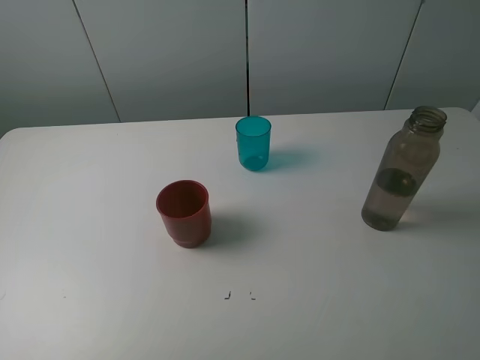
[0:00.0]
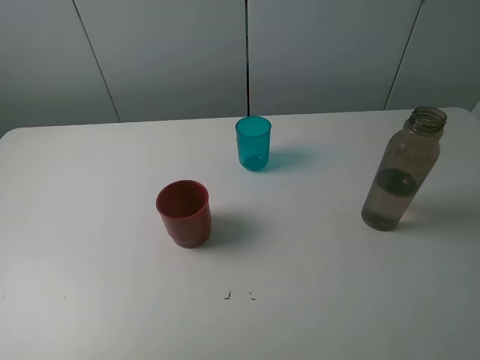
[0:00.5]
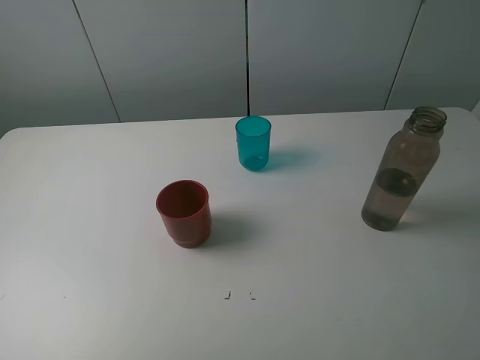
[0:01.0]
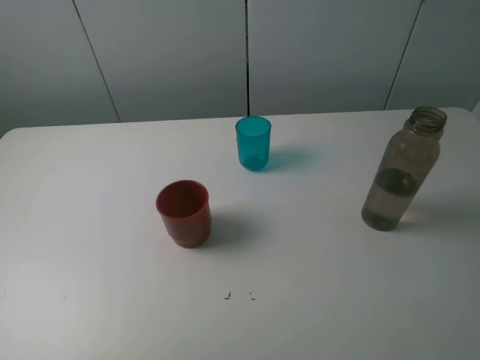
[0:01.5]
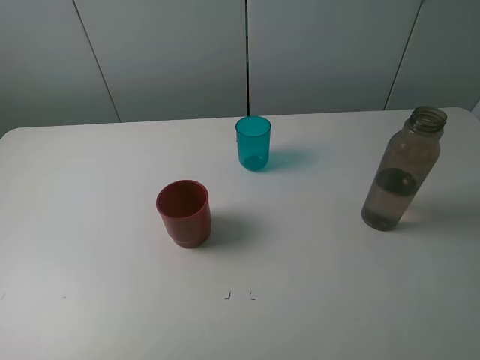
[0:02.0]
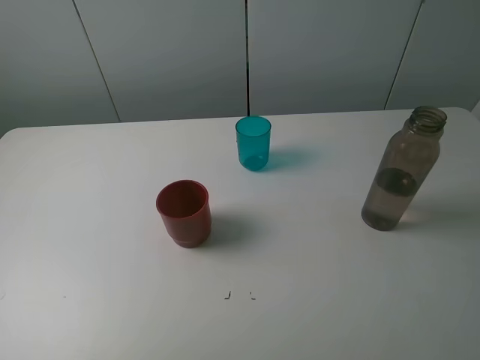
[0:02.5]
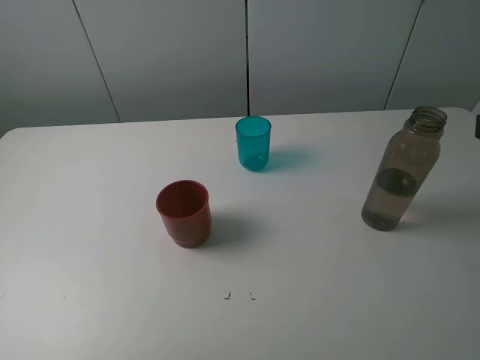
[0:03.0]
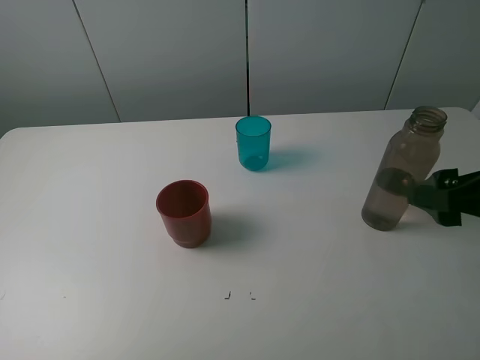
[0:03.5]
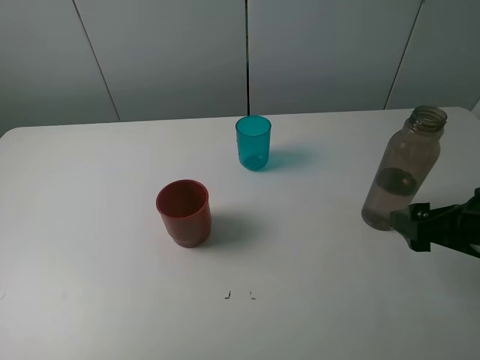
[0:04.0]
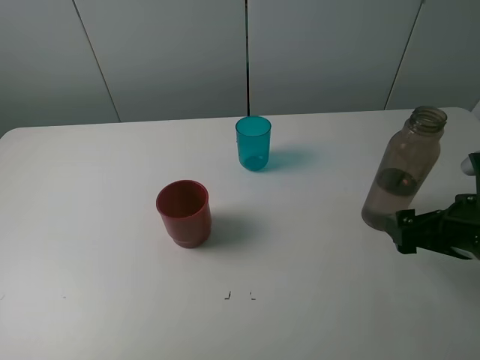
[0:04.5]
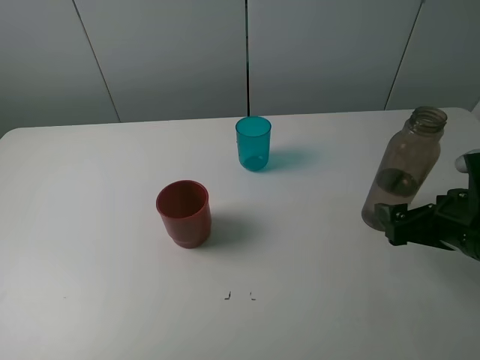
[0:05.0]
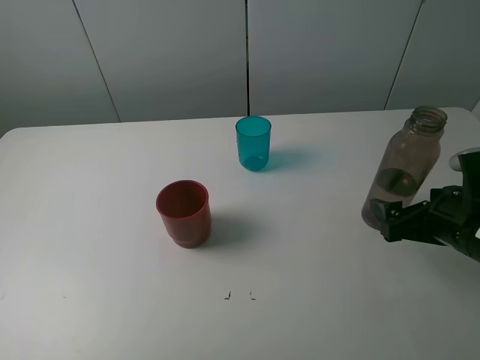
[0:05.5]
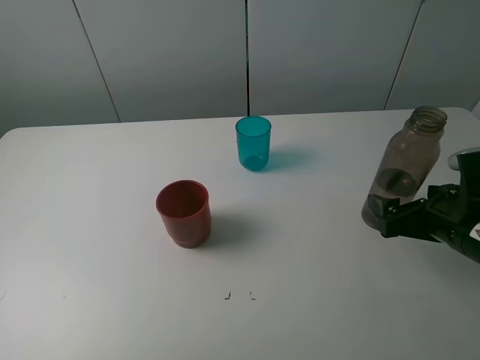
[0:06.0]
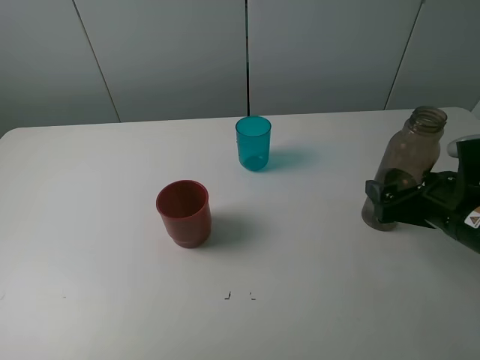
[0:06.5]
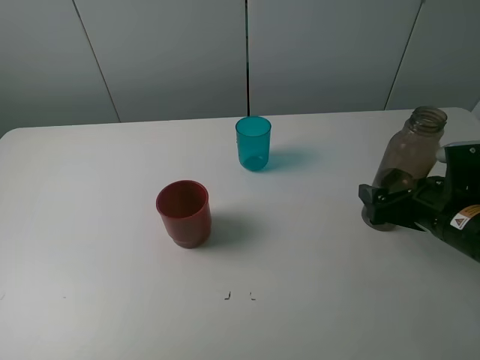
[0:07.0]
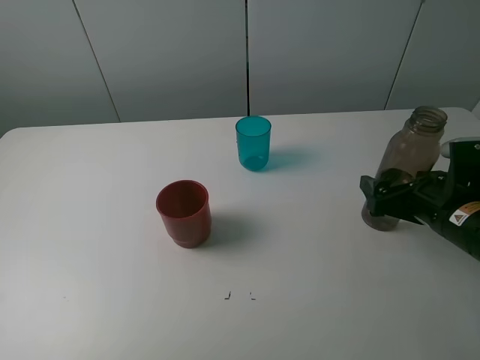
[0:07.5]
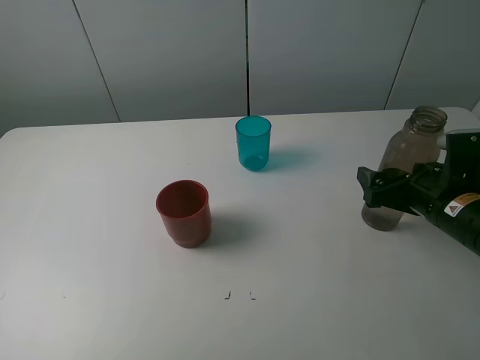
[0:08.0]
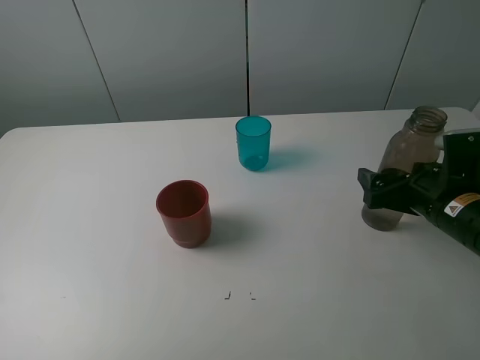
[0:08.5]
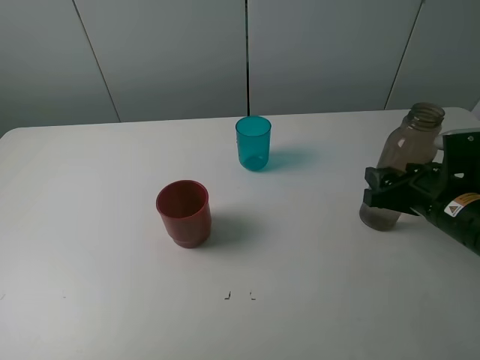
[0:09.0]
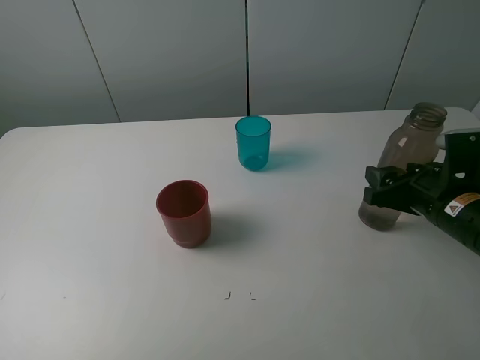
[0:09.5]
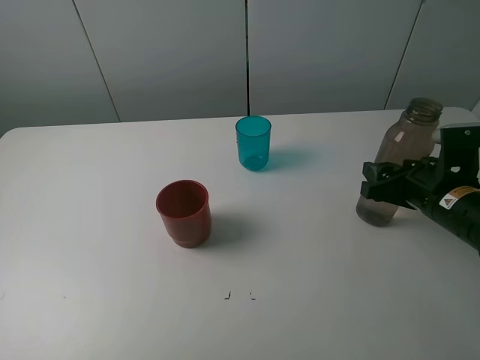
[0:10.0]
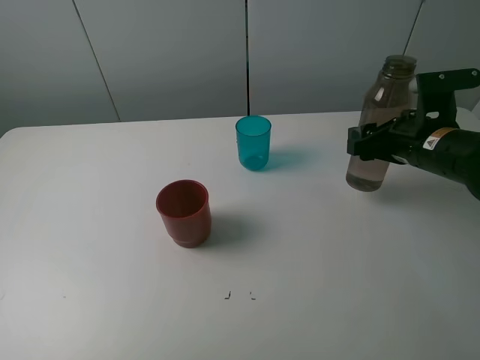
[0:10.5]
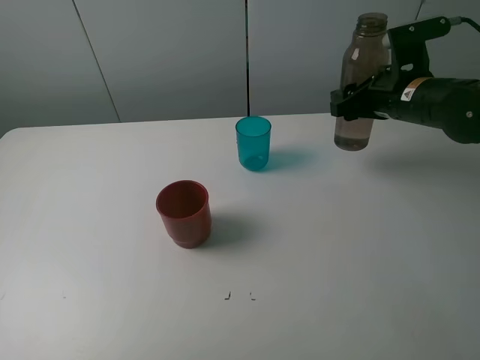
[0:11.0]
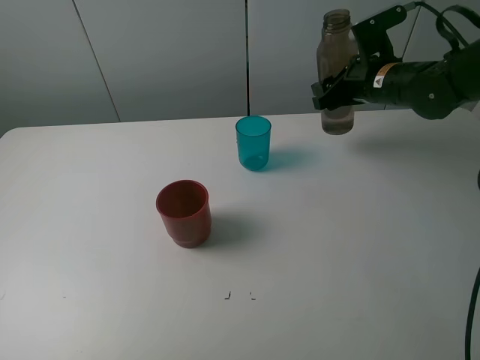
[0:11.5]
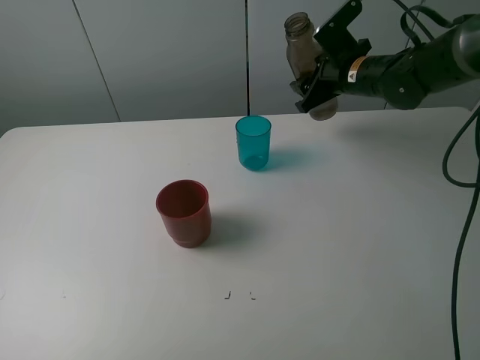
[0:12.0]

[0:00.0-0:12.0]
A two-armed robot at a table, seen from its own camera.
Task of the whole recording: pick up the bottle and pour water into the cup, then pick up the cup containing water and pour it into another cup.
Step, 0.0 to 9.0 s: Grasp the brown bottle with the right gripper.
0.0 to 2.0 s: The two grippers keep their place.
2.0 to 4.0 s: The right gripper shifts some 20 cm forward and downward.
4.0 to 6.0 s: The right gripper shifts by some 5 cm.
6.0 to 8.0 s: The grippers move only a little.
8.0 to 10.0 s: The right gripper closes its fingers.
10.0 to 12.0 s: The right gripper goes roughly 20 cm forward.

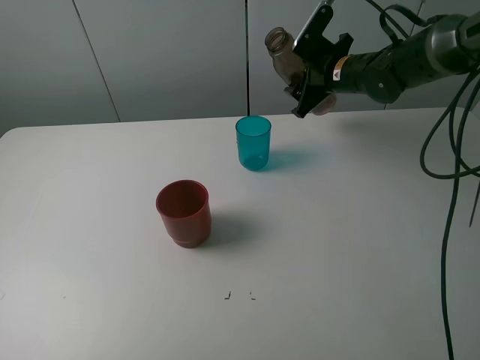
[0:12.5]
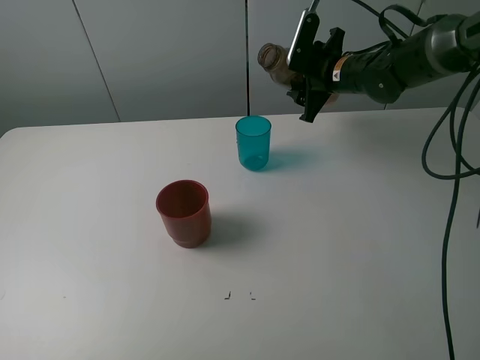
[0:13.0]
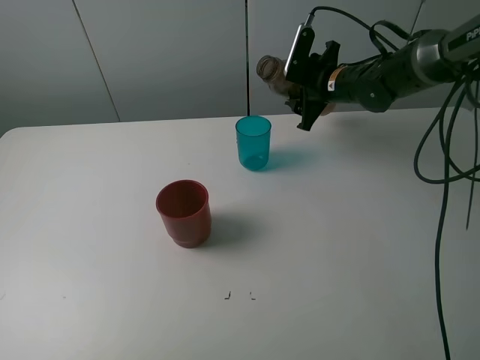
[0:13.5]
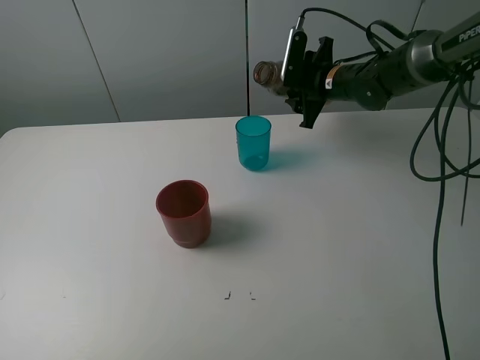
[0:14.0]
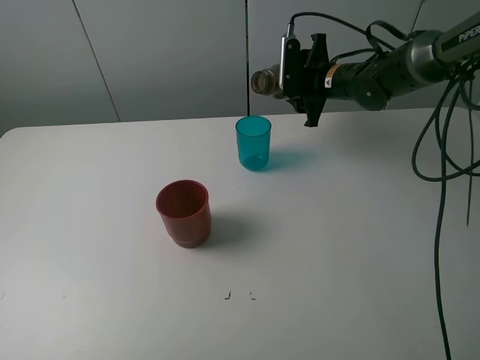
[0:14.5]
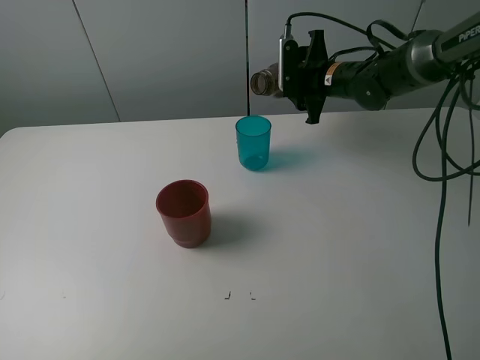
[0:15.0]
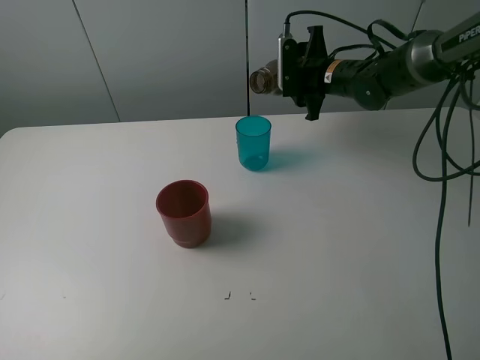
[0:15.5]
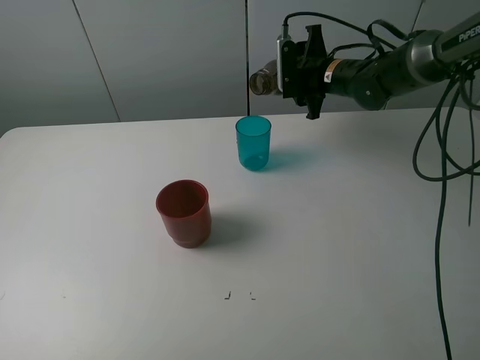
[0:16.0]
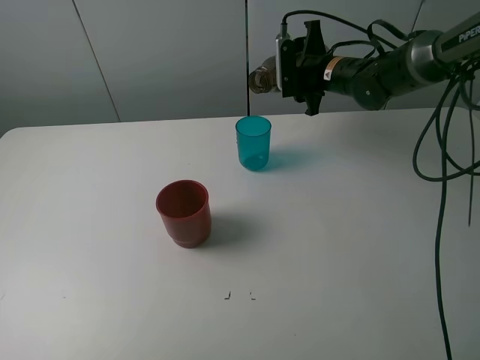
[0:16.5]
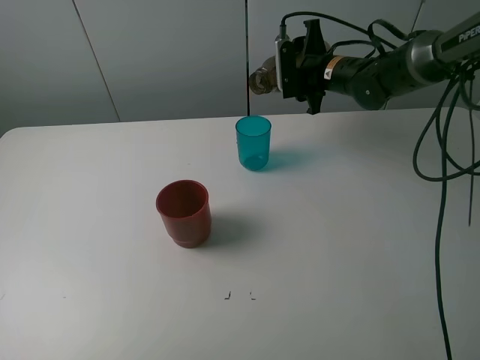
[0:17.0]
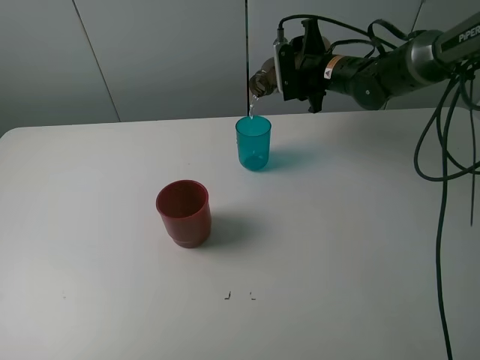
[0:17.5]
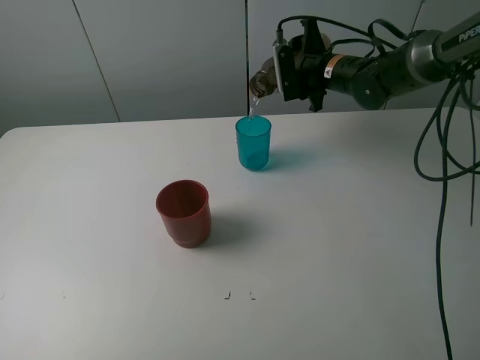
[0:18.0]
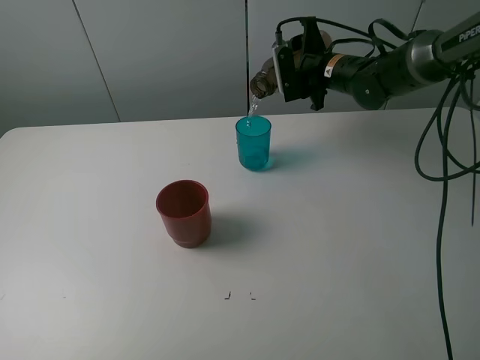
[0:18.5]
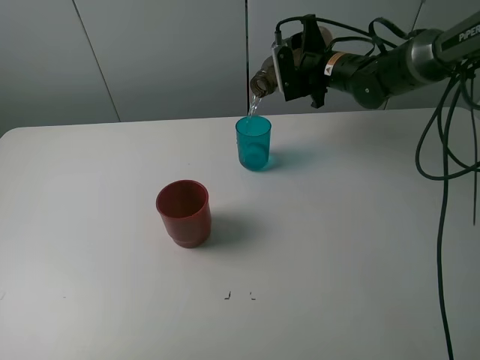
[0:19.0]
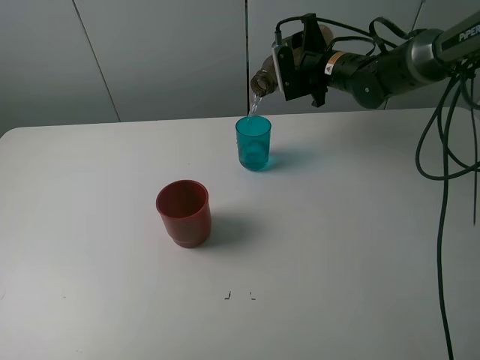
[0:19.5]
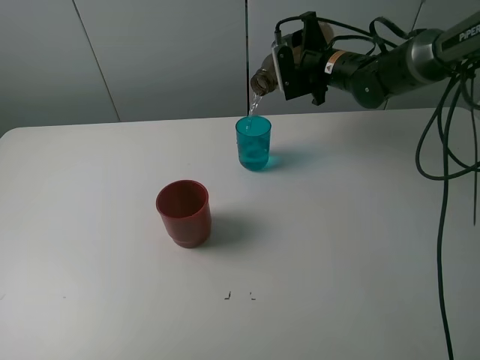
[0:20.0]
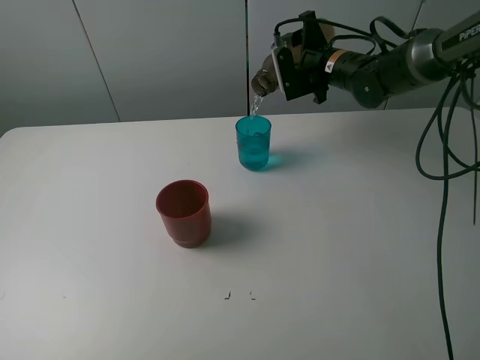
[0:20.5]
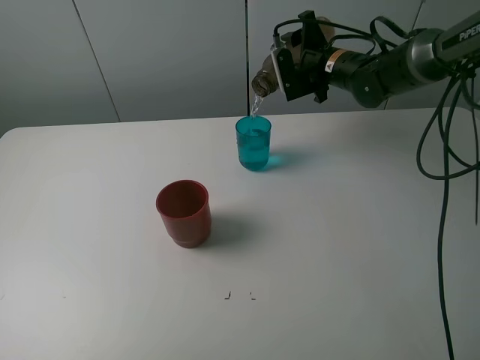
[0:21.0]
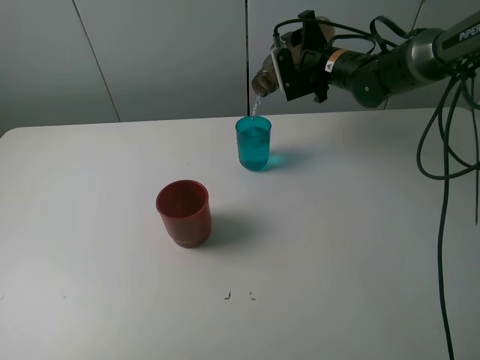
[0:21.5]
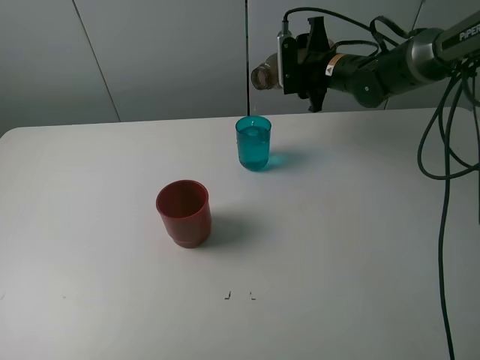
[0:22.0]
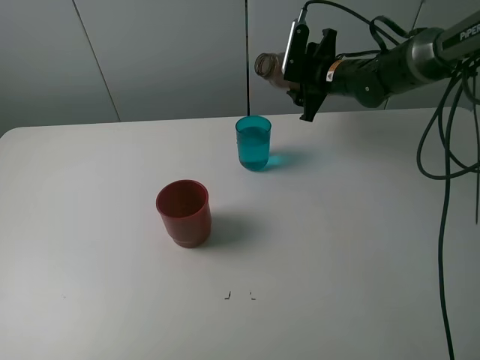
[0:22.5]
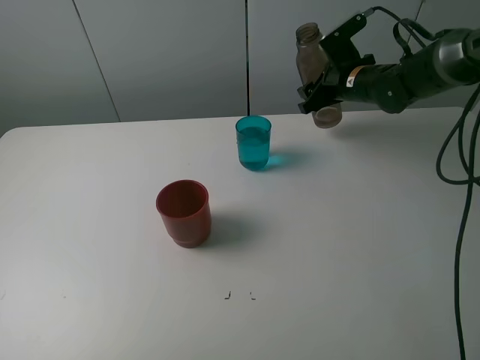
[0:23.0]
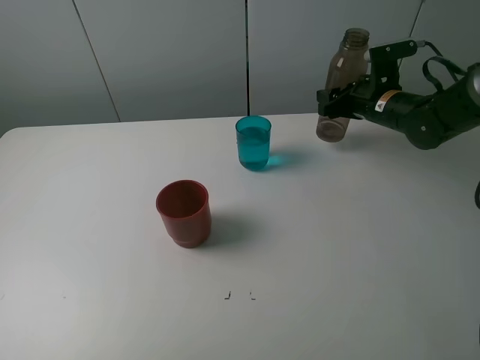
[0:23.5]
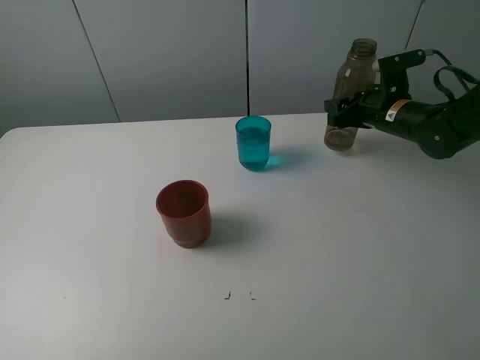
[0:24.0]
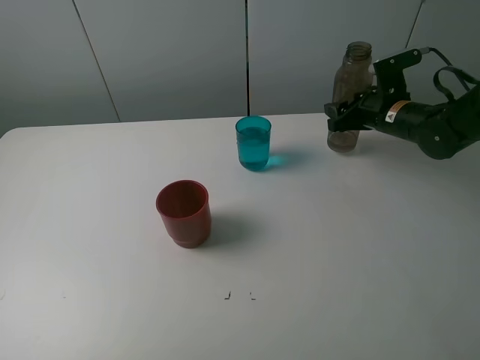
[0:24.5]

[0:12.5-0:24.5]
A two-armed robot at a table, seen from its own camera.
Task of the whole recording: pick up the bottle and pour water into the cup, then pick up the cup containing water and pour it into another cup.
Step, 12.5 to 22.0 s: Pour water from brown bottle to blue cup with the right gripper.
14.5 to 16.5 s: There are only small adjustments of the grippers.
16.5 to 20.5 s: There are only small adjustments of the grippers.
22.5 to 24.5 s: The right gripper goes roughly 10 cm to the right and backward.

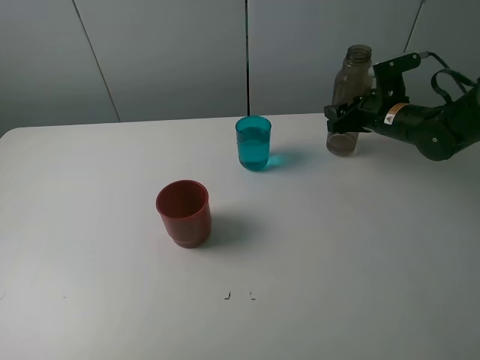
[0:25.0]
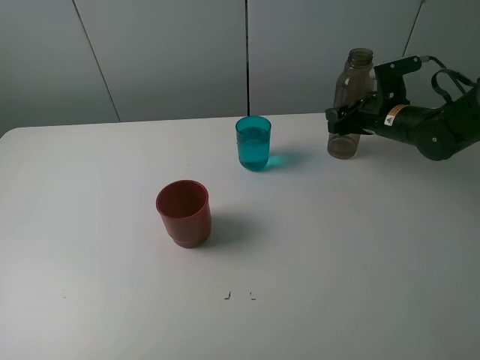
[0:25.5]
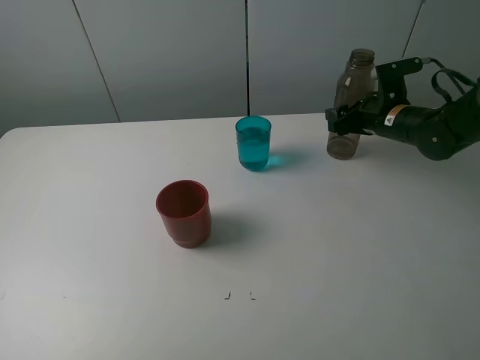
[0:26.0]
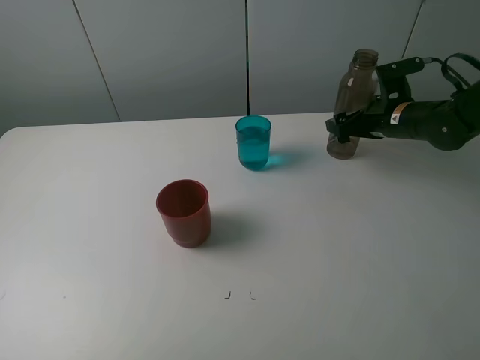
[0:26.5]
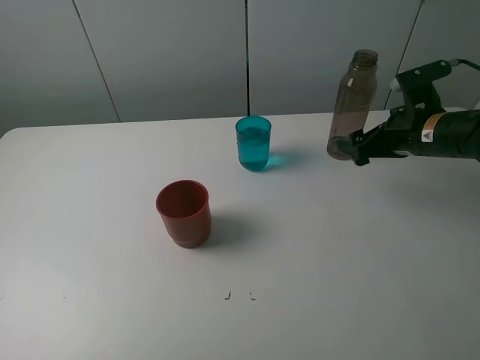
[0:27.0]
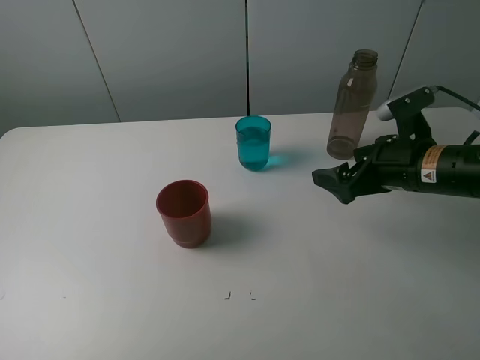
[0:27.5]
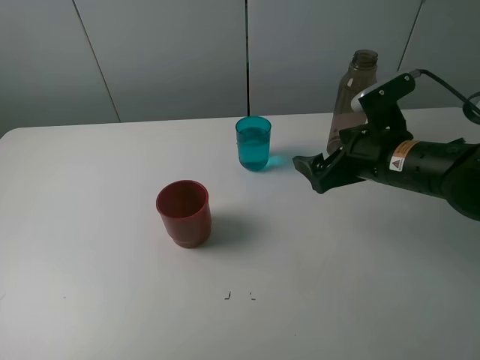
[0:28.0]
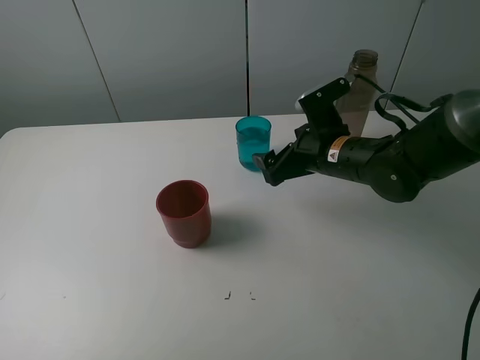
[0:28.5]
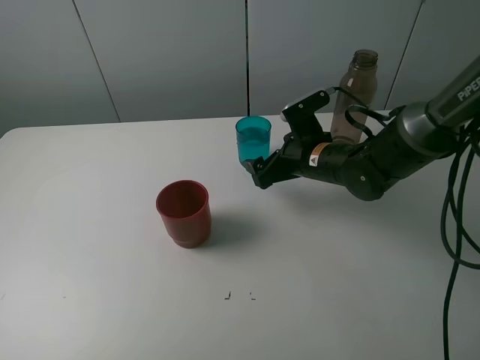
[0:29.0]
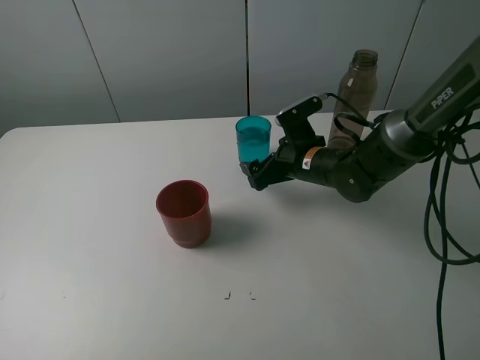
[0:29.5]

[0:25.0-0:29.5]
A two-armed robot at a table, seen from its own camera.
Task of the whole recording: pick up the bottle and pour water into the cup, then pick up the cup containing water and pour it into another cup.
25.0 to 27.0 s: The right gripper travels backward by about 10 cm, and opens its fingers.
27.0 to 29.5 s: The right gripper moves to the left and downward, roughly 15 cm.
